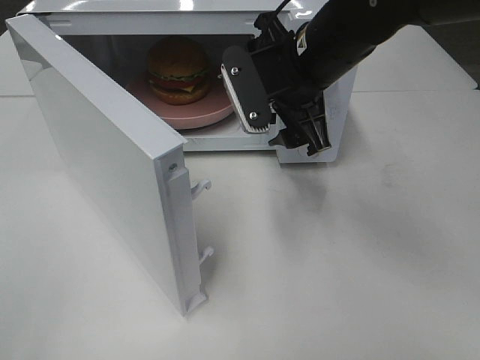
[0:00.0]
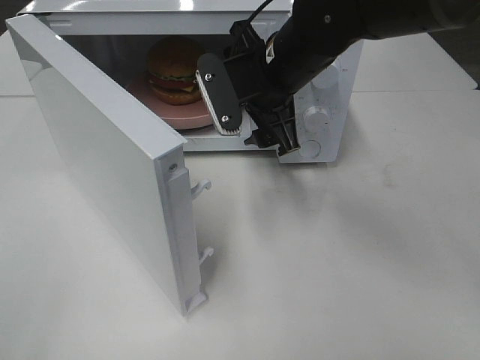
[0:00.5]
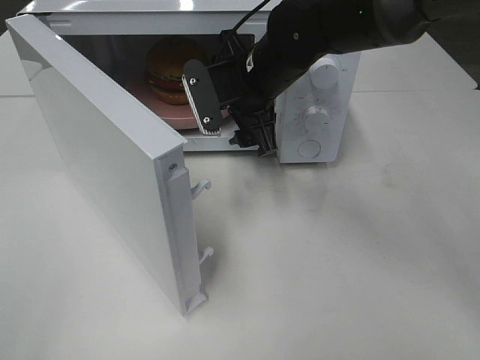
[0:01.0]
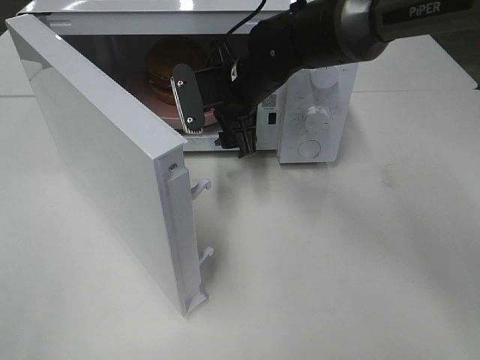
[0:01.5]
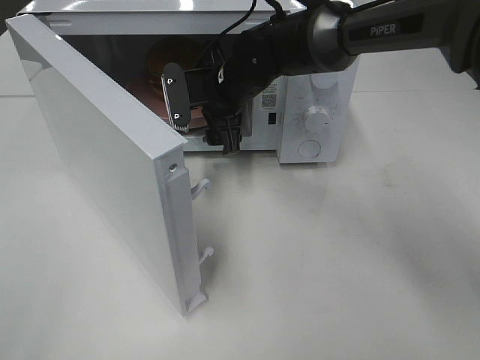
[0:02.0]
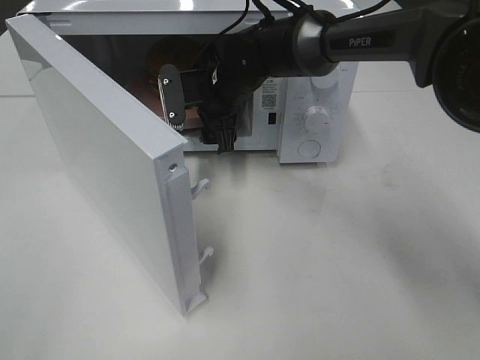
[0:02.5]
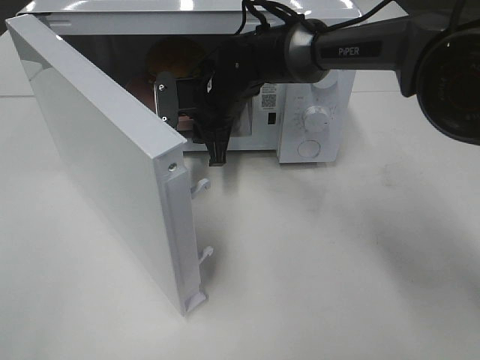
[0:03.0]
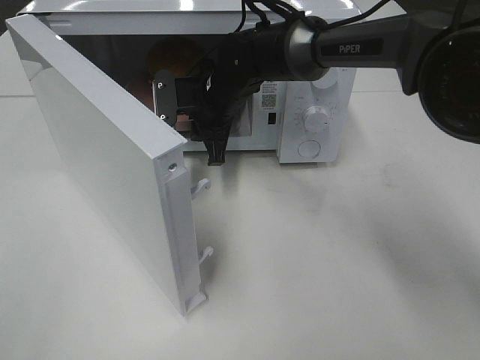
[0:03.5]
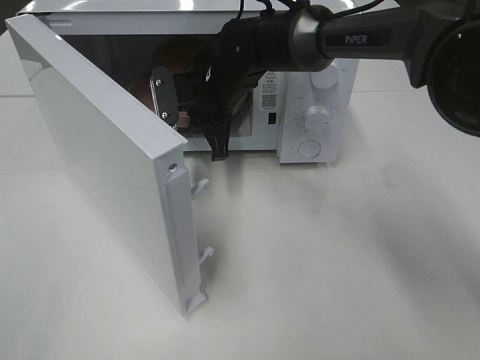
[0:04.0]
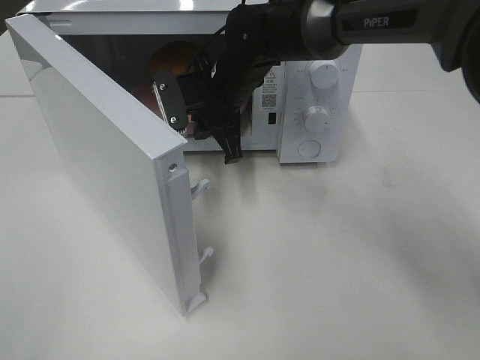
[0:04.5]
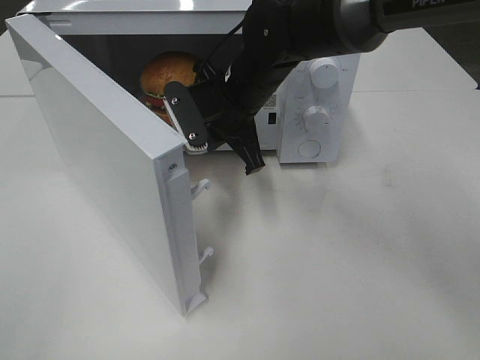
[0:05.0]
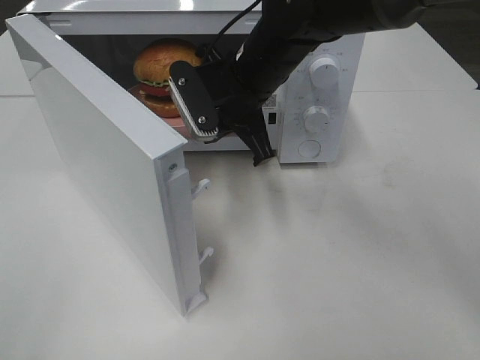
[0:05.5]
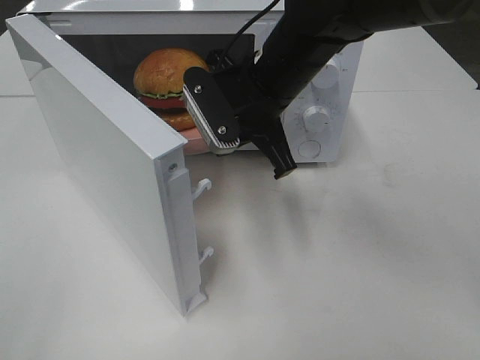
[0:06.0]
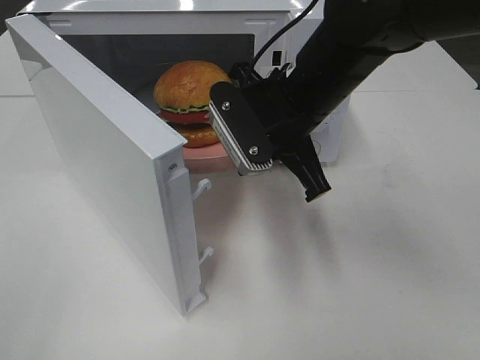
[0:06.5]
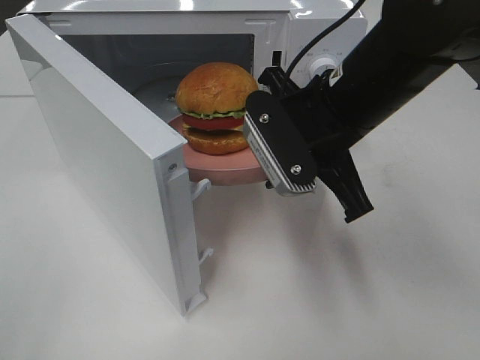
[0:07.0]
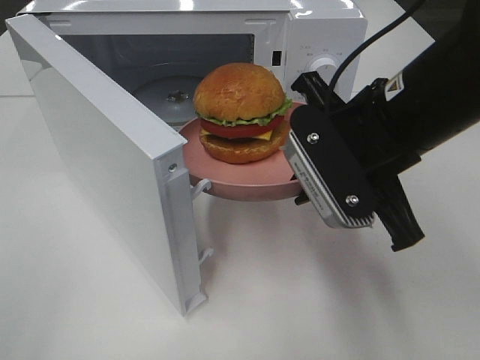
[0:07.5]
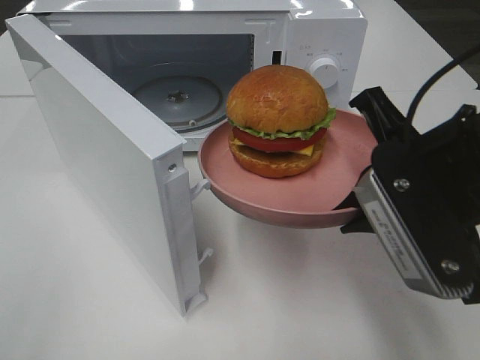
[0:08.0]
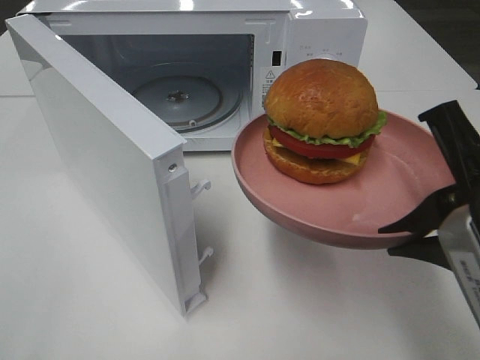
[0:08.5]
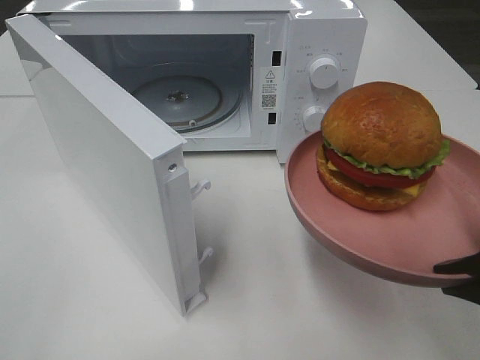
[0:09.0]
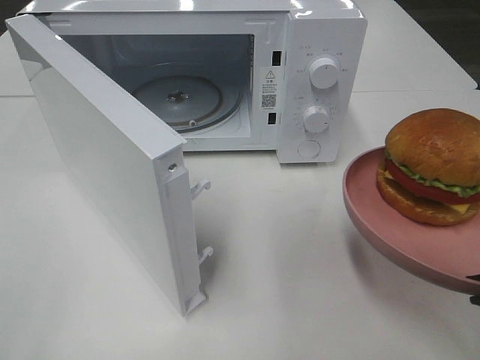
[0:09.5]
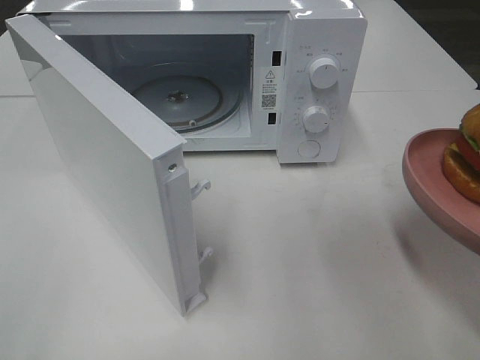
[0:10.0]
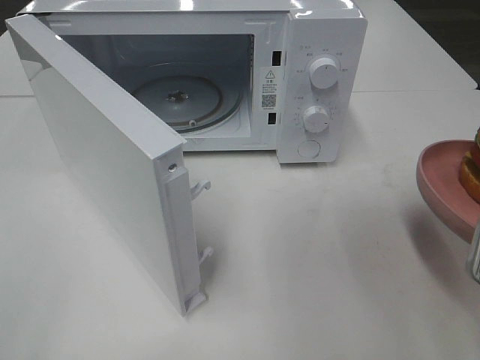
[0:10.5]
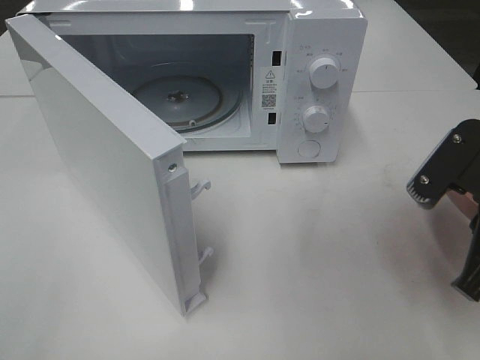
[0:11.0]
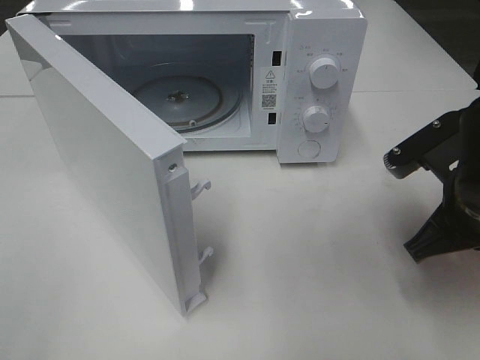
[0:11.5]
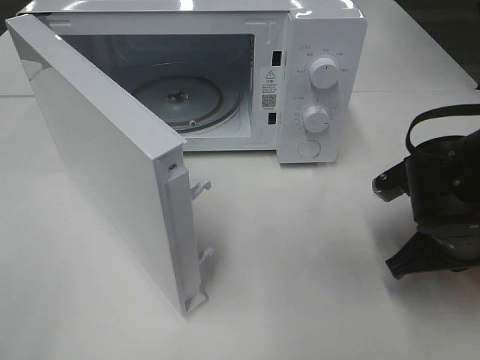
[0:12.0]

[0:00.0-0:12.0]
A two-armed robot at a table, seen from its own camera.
Task of the whole recording: Heat the burger.
Step, 0:00.0 to 0:03.5: Right hand: grab the plate with the hamburger.
0:00.0 to 0:02.0: The right gripper is displaced forward, downward and to the left by about 15 cm.
0:02.0 to 0:04.0: The right gripper closes its fingers.
0:04.0 to 0:06.0: The right gripper moves backward, upward and to the right, roughly 15 cm.
0:06.0 to 0:08.0: The right gripper moves backward and to the right, about 20 cm.
0:08.0 to 0:10.0: The right gripper shifts some 10 cm to the right and backward.
0:10.0 to 0:12.0: The right gripper travels forward and downward by some 15 cm.

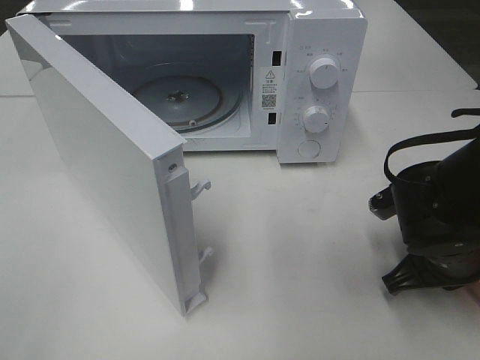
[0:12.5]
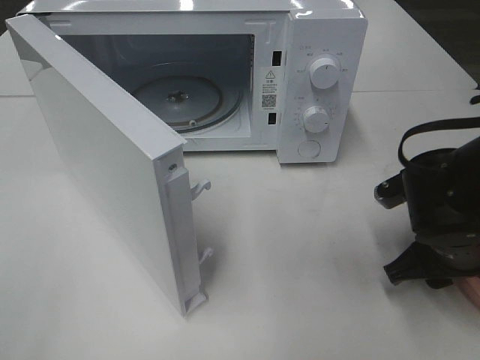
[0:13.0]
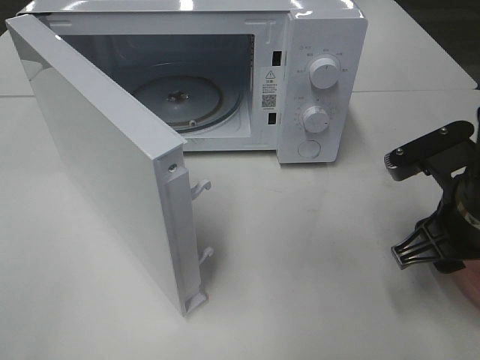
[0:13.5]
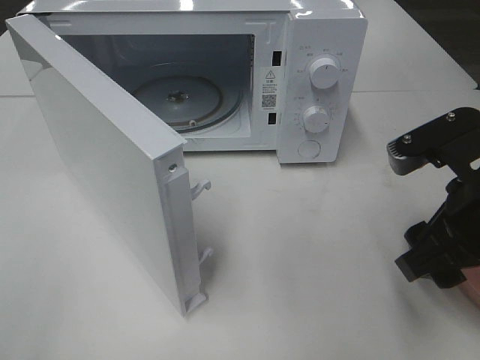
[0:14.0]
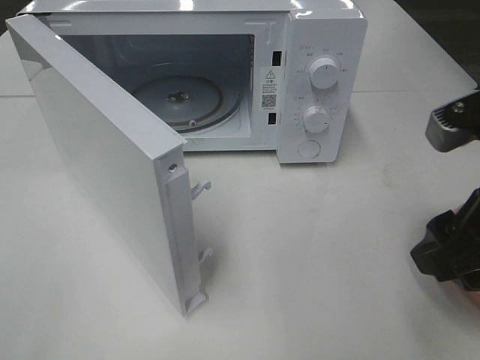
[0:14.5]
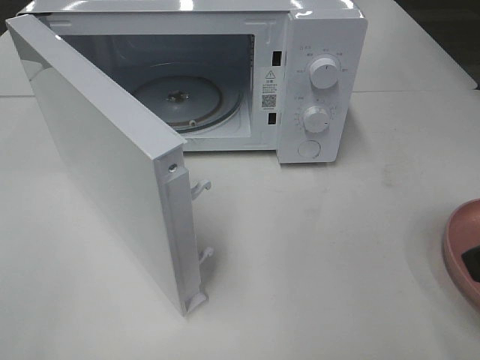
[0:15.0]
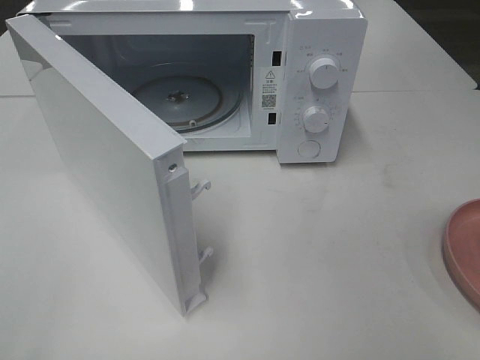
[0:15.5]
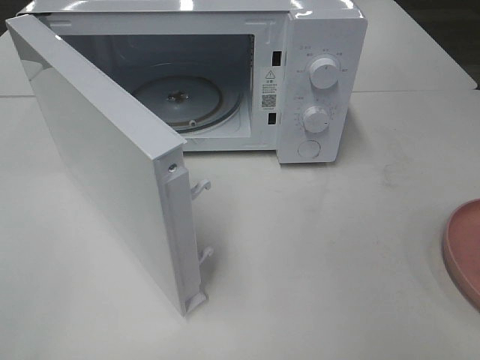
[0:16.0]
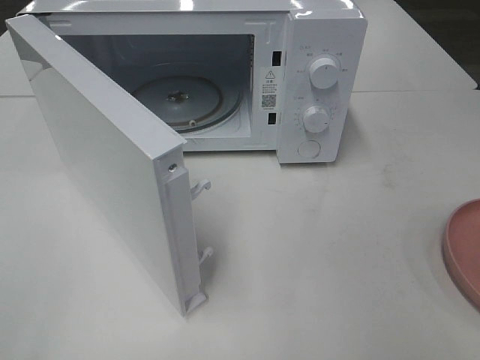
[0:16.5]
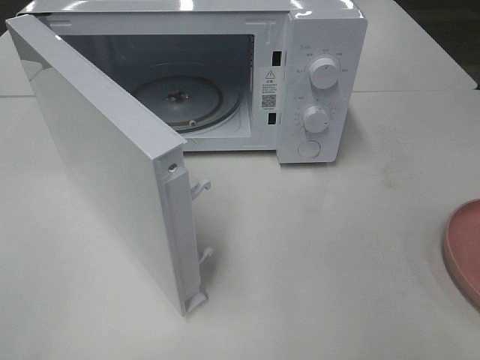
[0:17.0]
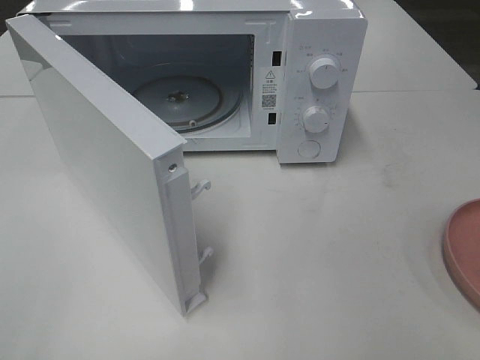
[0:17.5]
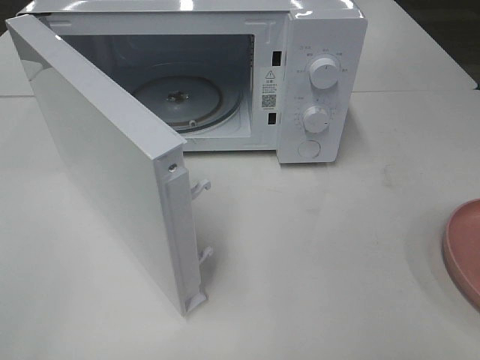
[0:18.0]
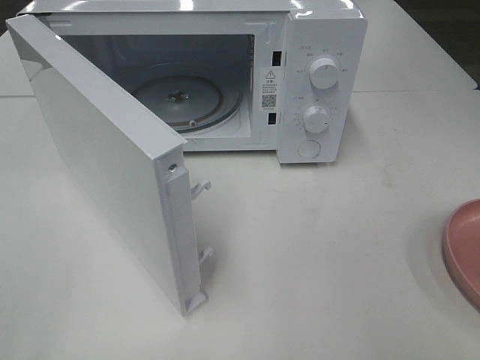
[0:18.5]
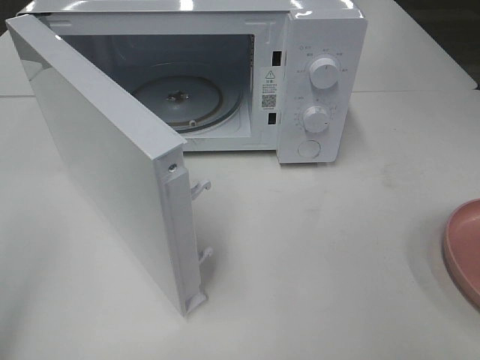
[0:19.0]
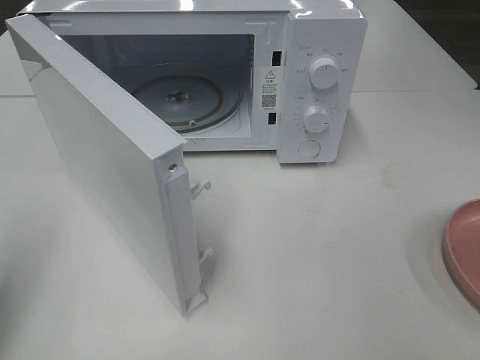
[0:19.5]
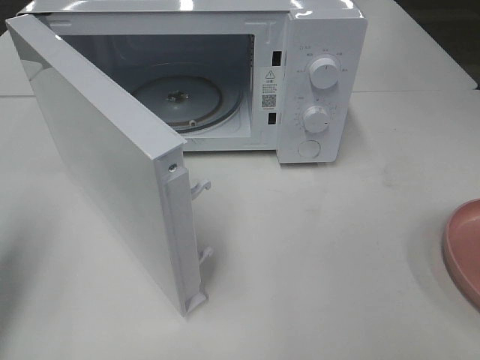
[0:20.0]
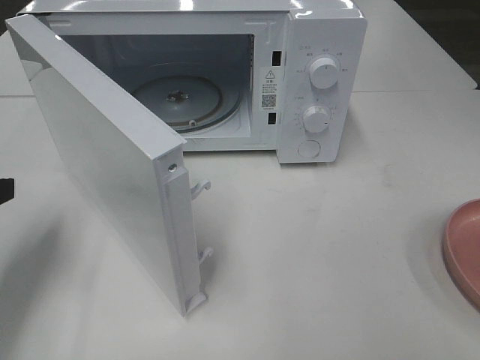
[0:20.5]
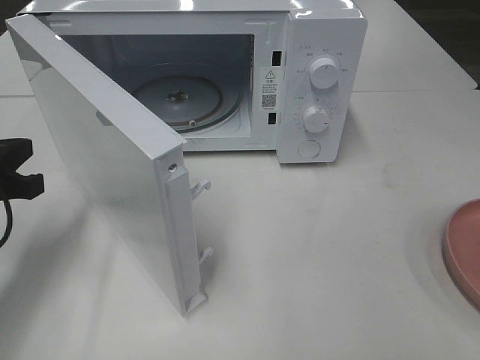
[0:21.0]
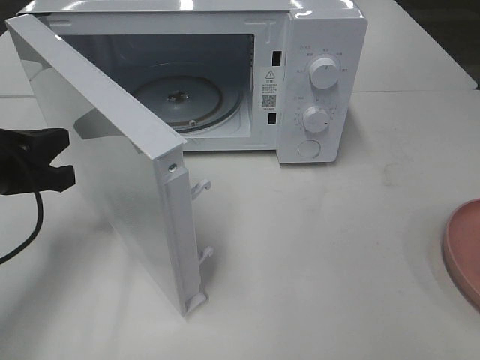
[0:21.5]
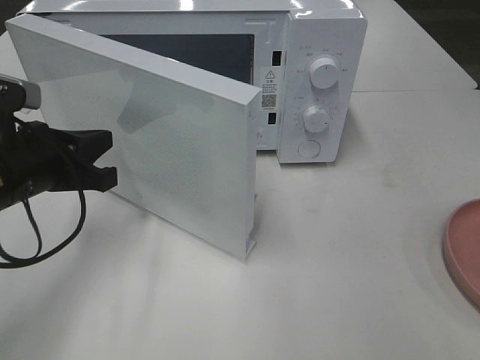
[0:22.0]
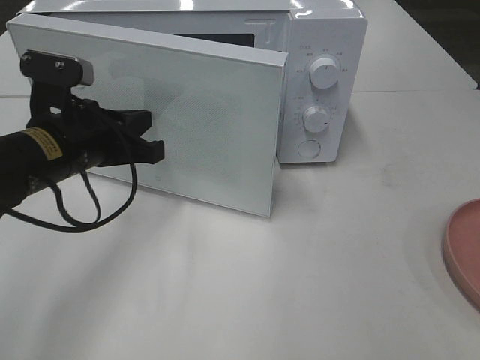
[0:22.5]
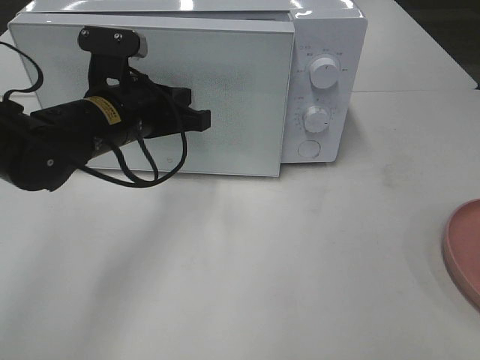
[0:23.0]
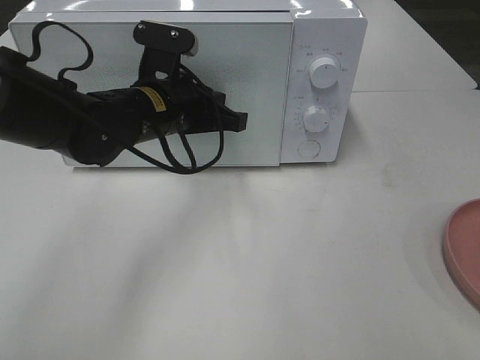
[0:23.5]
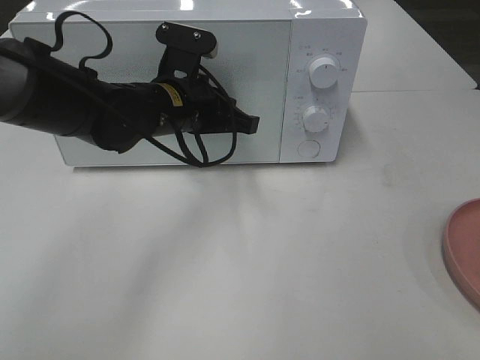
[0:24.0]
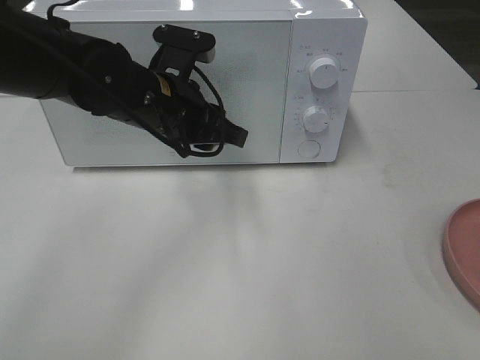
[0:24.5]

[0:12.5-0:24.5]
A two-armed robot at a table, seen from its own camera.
Task of the whole recording: Heat the burger.
Step, 0:13.0 to 0:24.0: Left hand: close the microwave door.
0:12.5 to 0:14.5: The right gripper goes roughly 15 cm upward and backward, and opens its fingers.
0:14.5 to 0:16.5: The right gripper travels backward and to the right by roughly 15 cm.
0:16.5 to 0:18.5: Neither gripper changes place.
0:18.5 to 0:20.5: The left gripper heads forward and downward, covering some 25 cm, and closes its fingers.
0:20.5 to 0:22.5: The left gripper heads to the right and forward, covering approximately 15 cm.
0:22.5 to 0:24.5: The left gripper heads to the right, covering about 10 cm, and opens.

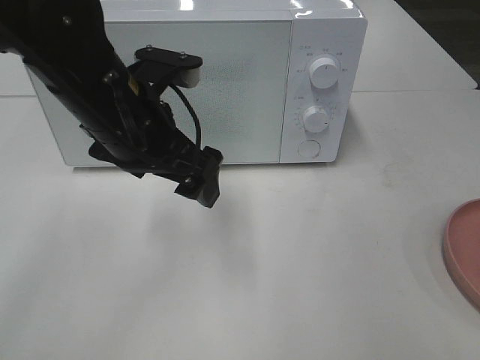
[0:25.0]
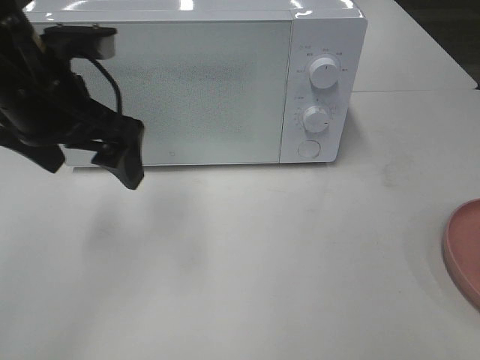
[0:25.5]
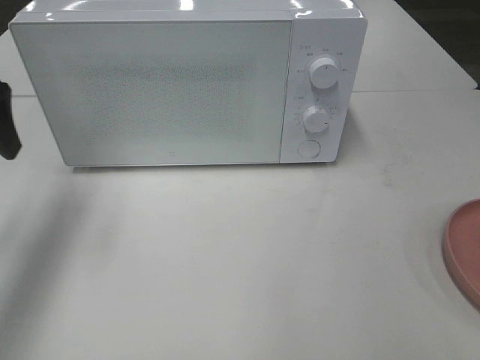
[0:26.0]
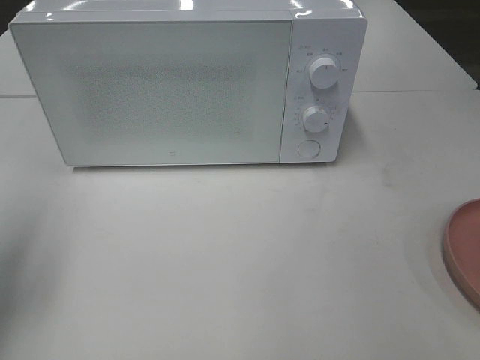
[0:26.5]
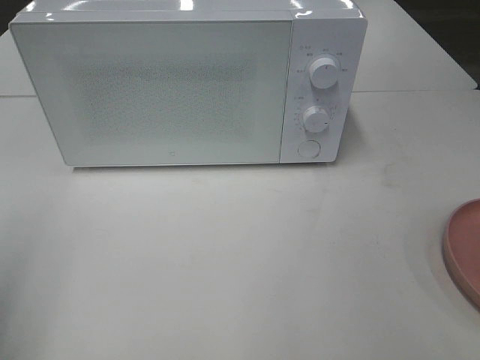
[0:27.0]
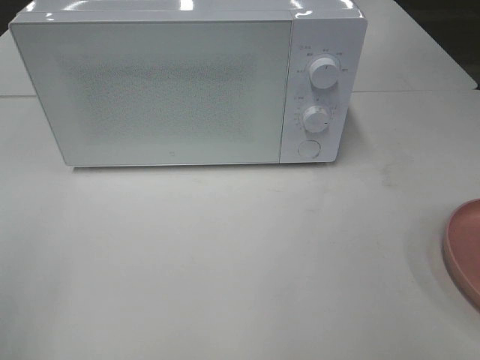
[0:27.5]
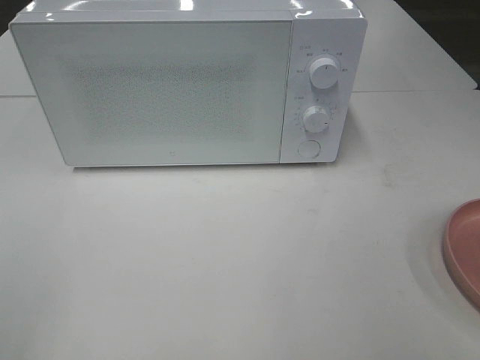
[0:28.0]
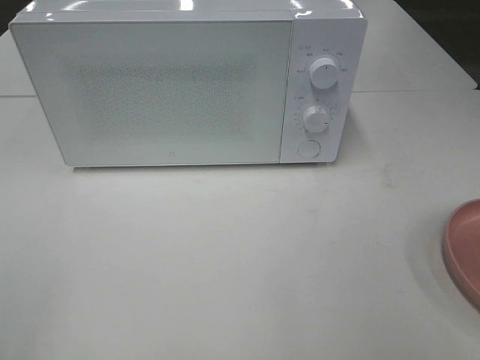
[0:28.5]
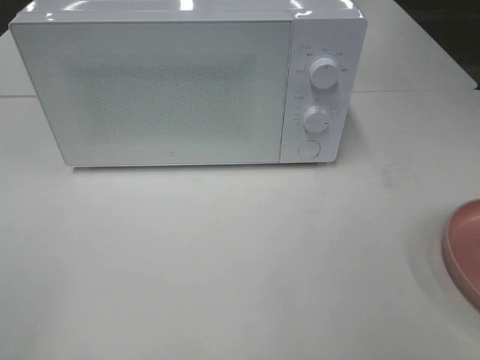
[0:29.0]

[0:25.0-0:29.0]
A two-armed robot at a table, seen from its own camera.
Task of the whole recording: Heat the burger.
0:25.0 to 0:27.0: The left gripper is displaced to the left and backward by approximately 30 cm.
